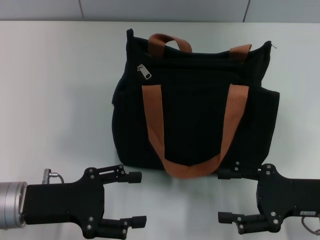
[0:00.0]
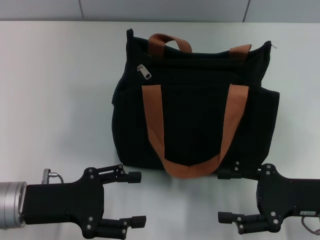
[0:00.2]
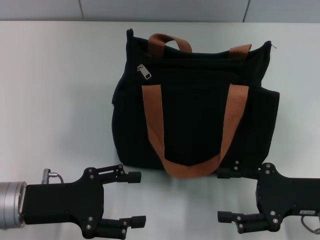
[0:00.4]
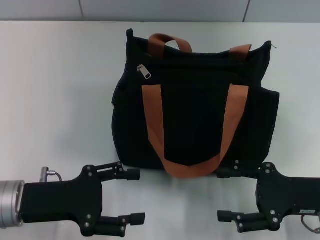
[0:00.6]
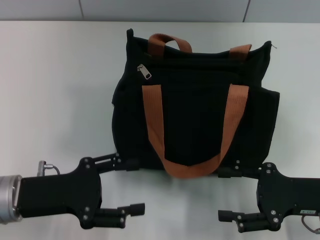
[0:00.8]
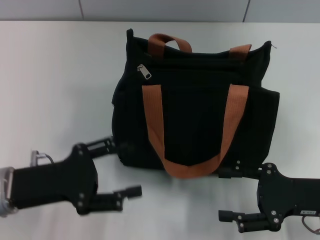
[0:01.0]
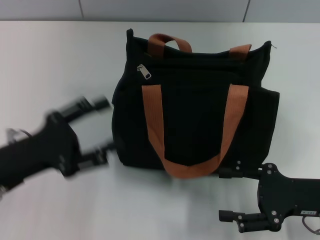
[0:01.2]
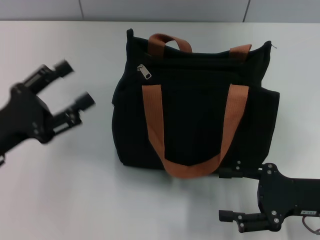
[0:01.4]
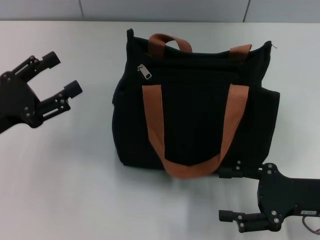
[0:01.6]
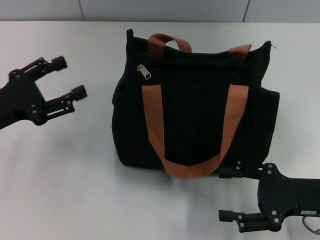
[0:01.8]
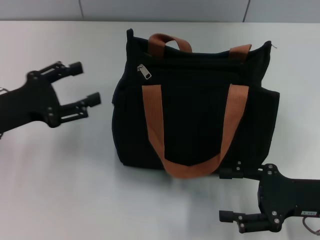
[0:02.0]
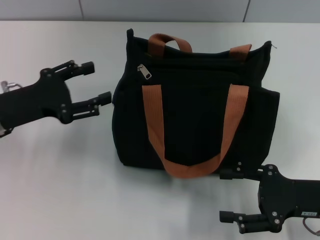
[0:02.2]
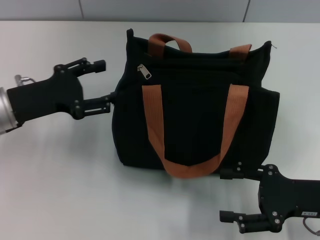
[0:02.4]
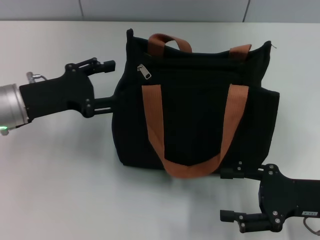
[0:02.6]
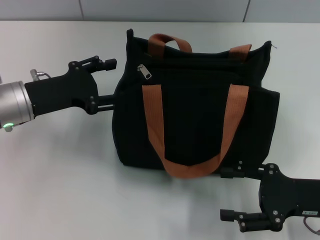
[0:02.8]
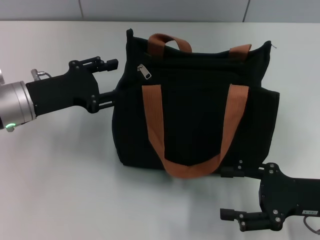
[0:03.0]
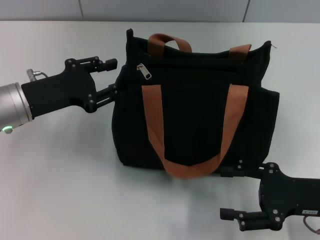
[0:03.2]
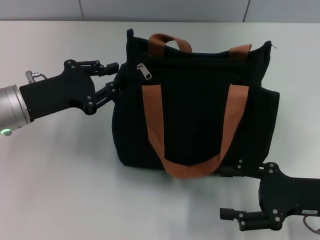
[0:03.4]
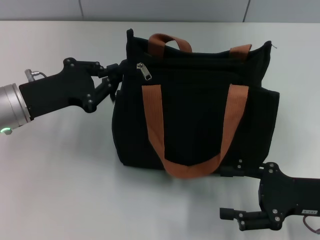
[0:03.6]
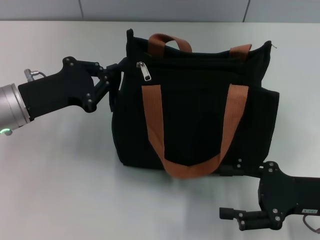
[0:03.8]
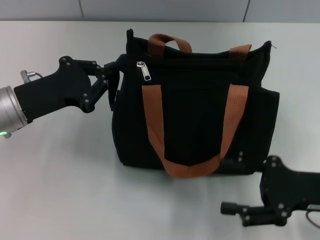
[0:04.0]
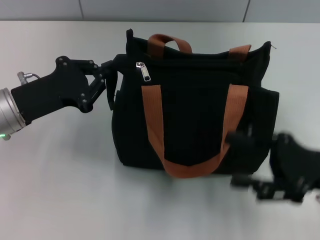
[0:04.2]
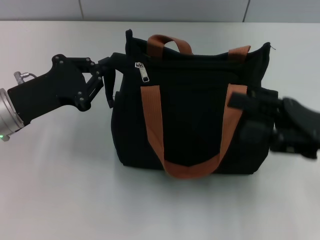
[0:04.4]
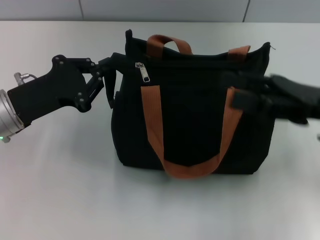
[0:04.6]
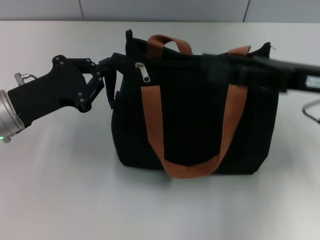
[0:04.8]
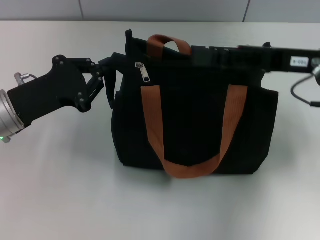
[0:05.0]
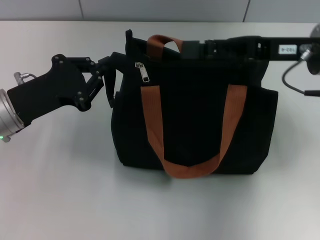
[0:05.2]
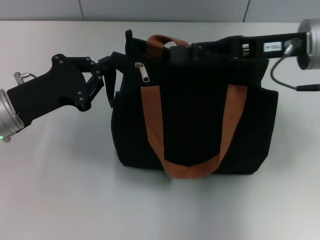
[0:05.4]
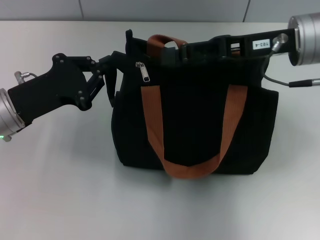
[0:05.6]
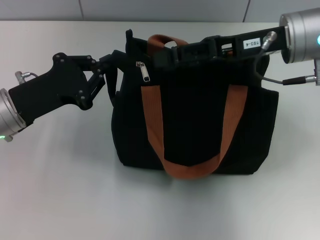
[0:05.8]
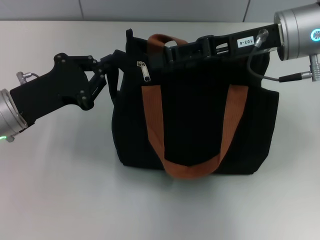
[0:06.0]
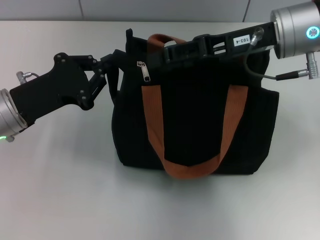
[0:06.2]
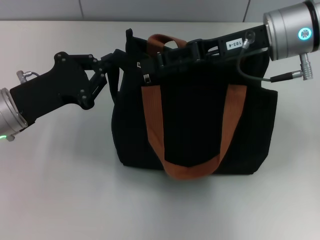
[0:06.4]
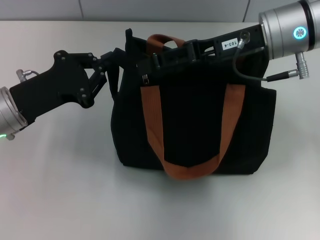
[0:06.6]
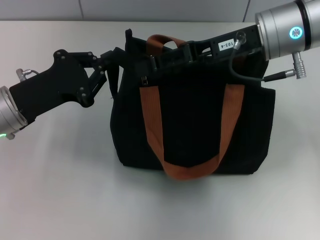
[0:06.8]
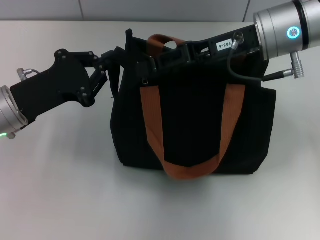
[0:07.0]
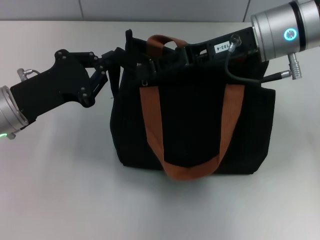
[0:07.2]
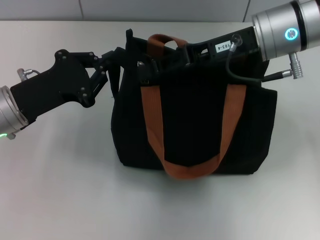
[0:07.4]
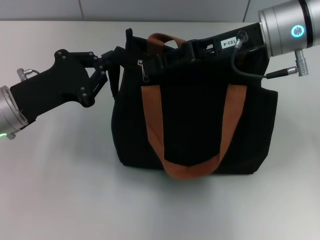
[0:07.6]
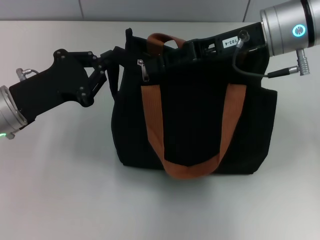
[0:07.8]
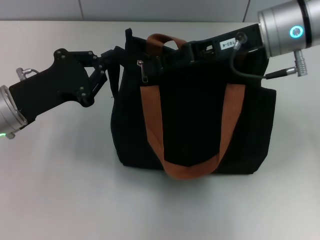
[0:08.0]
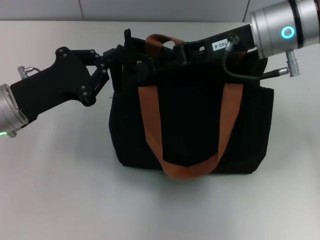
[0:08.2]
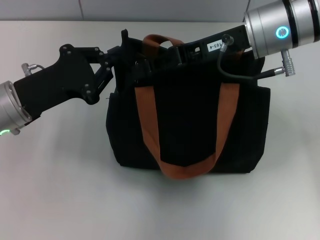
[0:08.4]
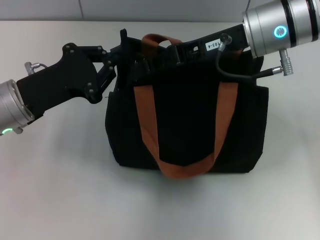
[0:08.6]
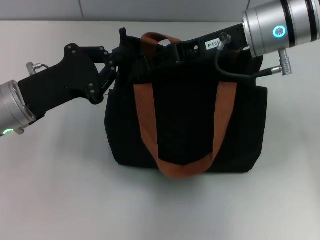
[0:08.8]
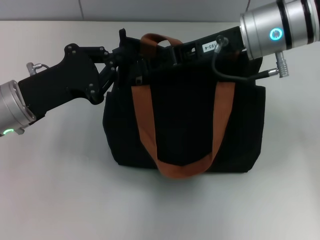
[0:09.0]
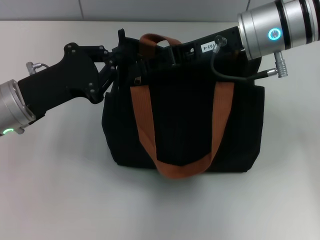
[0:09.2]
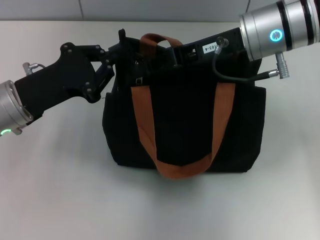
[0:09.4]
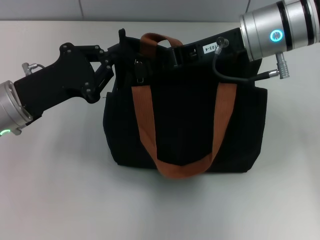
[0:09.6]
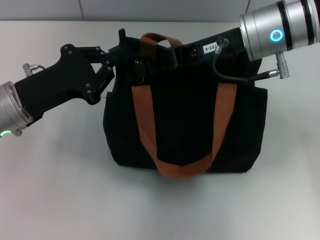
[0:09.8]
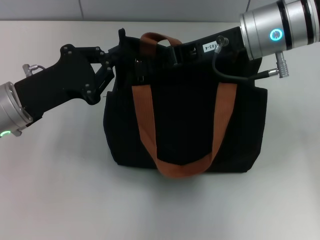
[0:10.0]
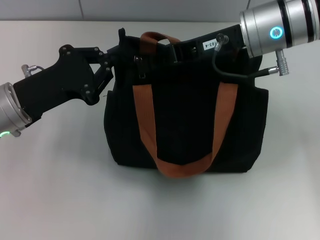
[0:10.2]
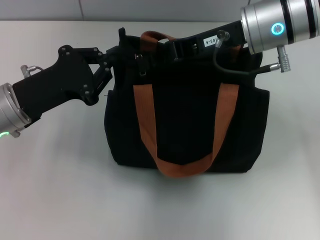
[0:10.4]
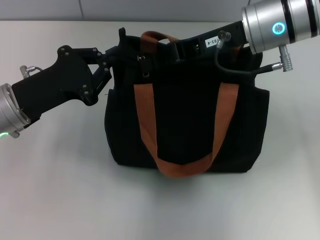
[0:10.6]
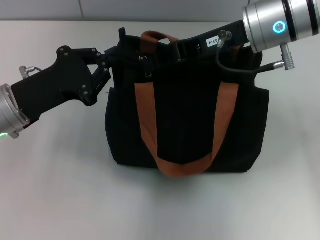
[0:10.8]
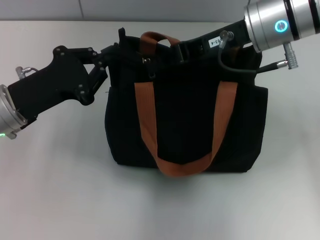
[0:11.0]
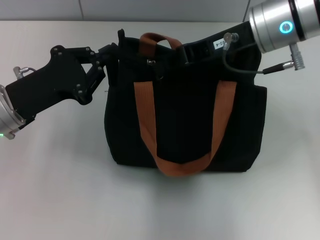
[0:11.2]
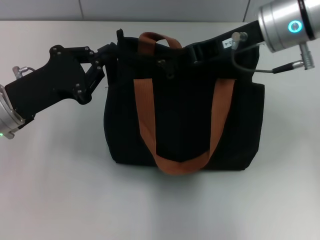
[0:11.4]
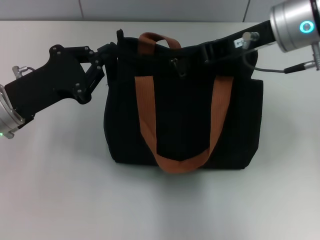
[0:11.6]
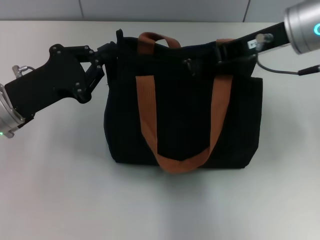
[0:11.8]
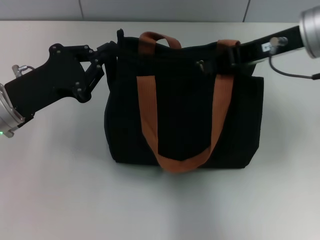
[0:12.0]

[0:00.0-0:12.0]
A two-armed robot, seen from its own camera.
0:00.0 to 0:01.6: The left gripper goes approximately 5 cm to the left.
0:01.6 to 0:03.0: The left gripper goes about 10 cm forward and to the right.
0:03.0 to 0:04.4: The right gripper is displaced upward by about 5 cm; the left gripper closes up.
0:04.4 to 0:06.0: The right gripper heads forward, to the left and upward, covering approximately 15 cm.
0:06.0 to 0:07.6: The right gripper closes up.
0:07.6 to 0:09.0: The grippers stay close to where they were, moving slightly.
0:09.0 to 0:10.4: The right gripper closes its fingers.
0:10.4 to 0:12.0: The right gripper moves to the right, roughly 5 cm.

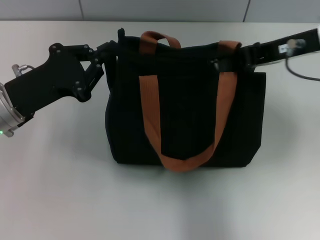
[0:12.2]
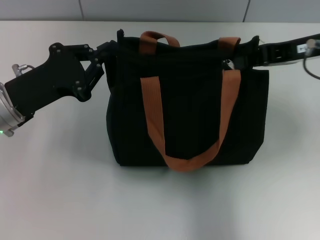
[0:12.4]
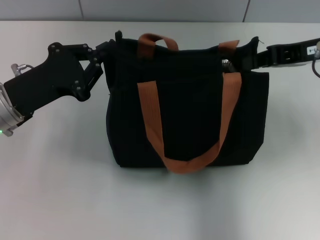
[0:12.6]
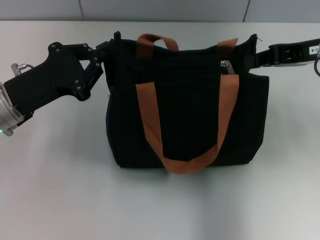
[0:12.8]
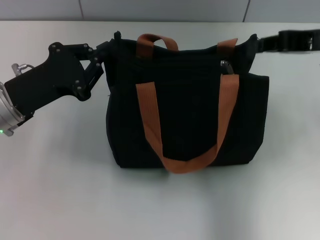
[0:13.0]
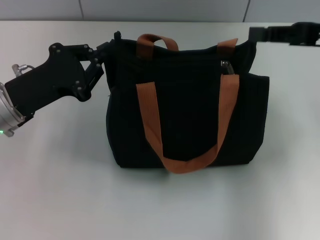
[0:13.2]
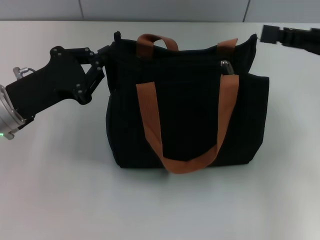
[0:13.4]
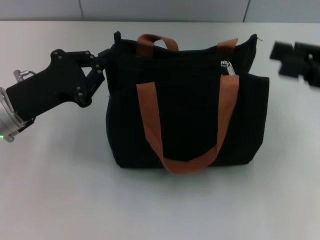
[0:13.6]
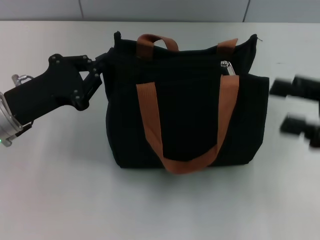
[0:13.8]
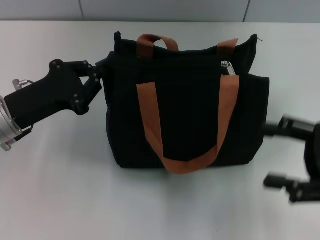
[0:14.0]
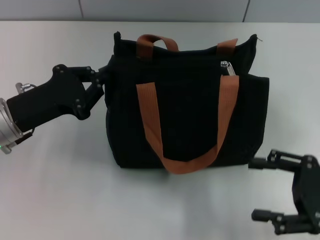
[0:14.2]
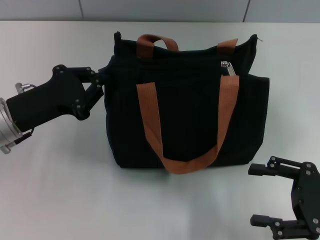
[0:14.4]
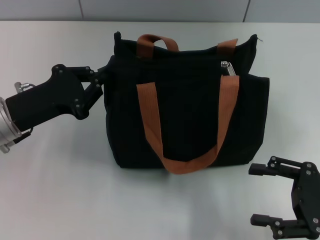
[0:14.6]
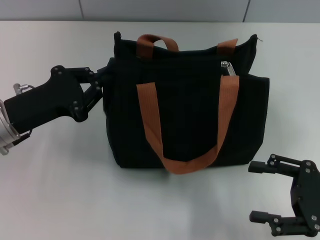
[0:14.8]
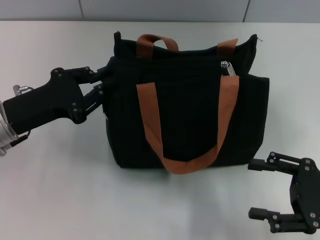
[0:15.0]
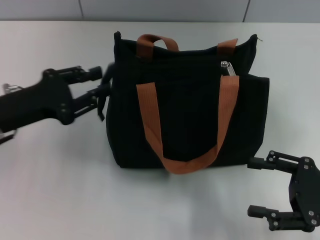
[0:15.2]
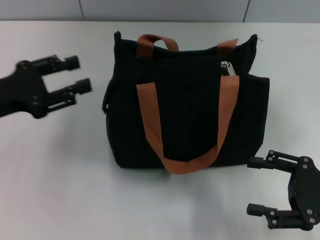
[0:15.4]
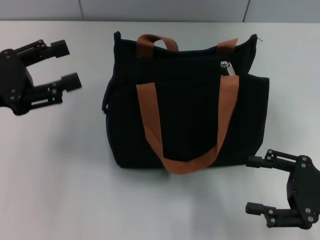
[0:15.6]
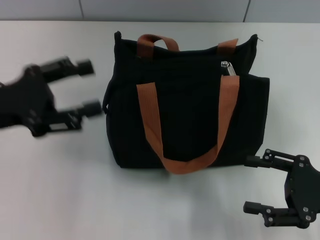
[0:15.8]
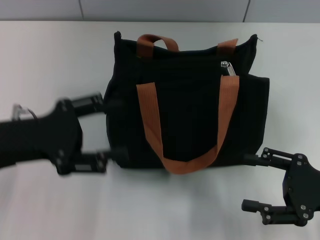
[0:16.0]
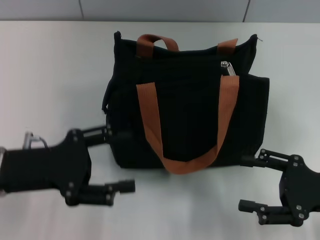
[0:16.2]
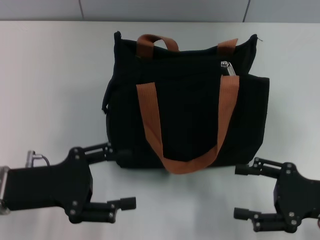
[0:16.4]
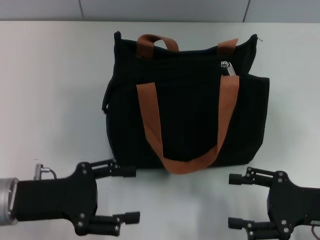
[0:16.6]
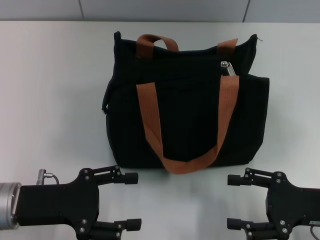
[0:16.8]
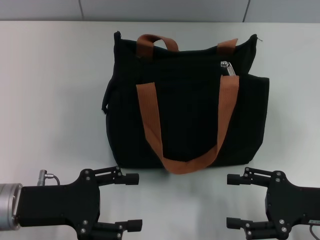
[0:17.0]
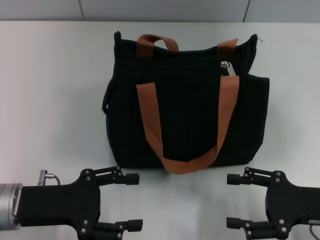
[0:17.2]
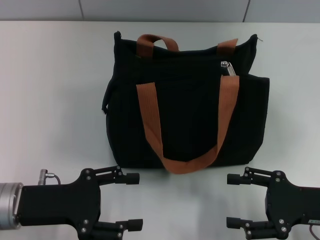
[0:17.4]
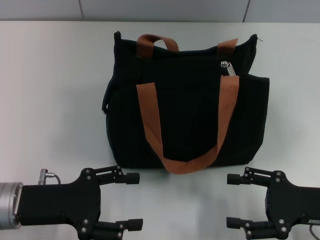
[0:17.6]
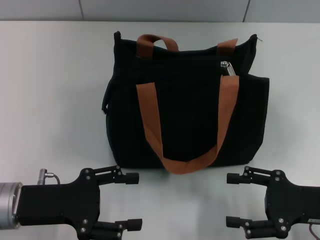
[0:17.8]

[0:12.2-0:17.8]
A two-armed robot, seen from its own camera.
Step, 0:12.8 to 0:15.4: Grab the zipper with your left hand.
0:12.2 to 0:13.6: The right gripper goes about 10 cm to the right and backward, and opens up.
0:13.6 to 0:15.0: The right gripper travels downward and backward by roughly 15 cm, and opens its fingers.
0:15.0 to 0:16.4: The left gripper goes approximately 5 cm backward, and opens up.
0:16.4 to 0:17.8: The grippers make only small movements.

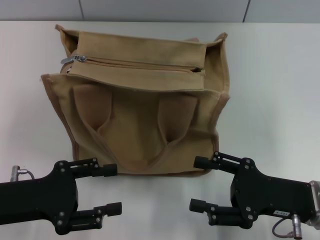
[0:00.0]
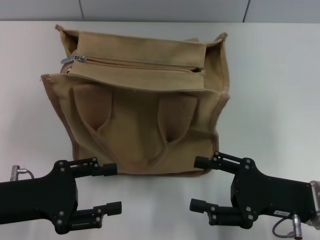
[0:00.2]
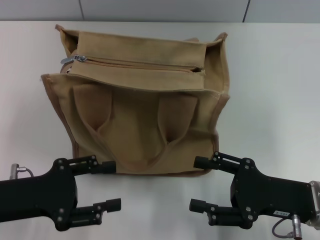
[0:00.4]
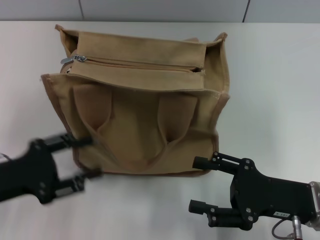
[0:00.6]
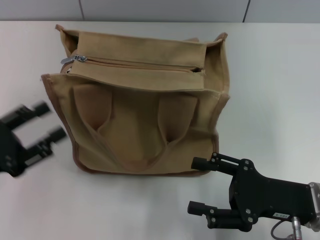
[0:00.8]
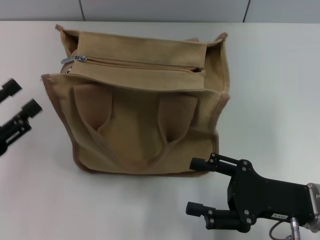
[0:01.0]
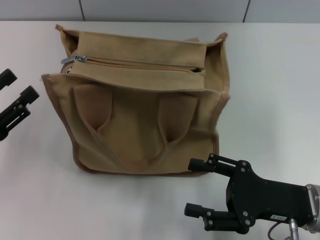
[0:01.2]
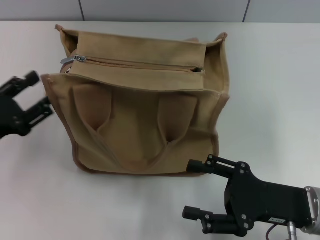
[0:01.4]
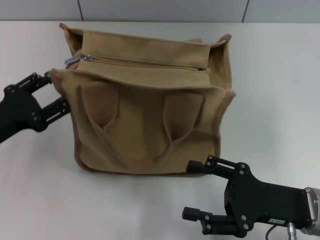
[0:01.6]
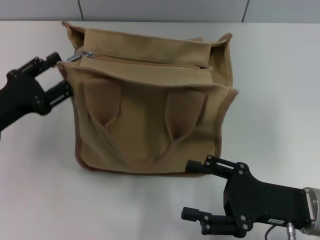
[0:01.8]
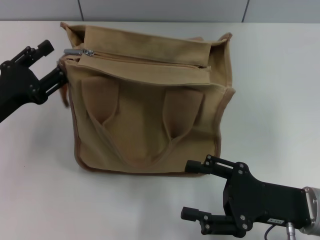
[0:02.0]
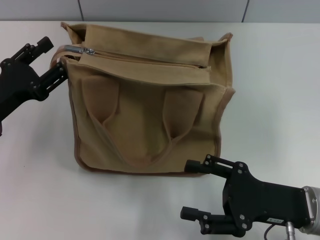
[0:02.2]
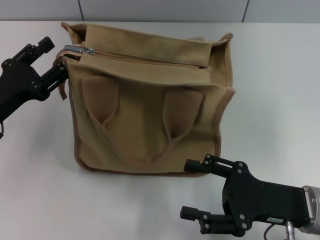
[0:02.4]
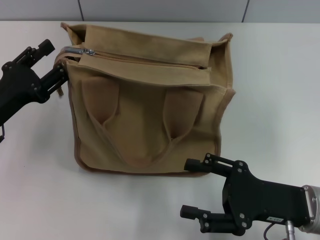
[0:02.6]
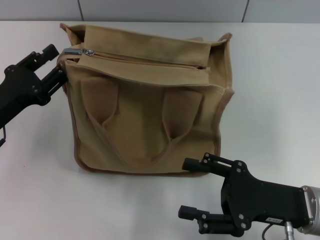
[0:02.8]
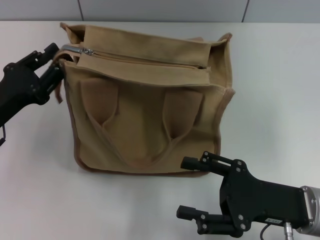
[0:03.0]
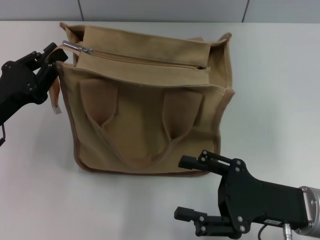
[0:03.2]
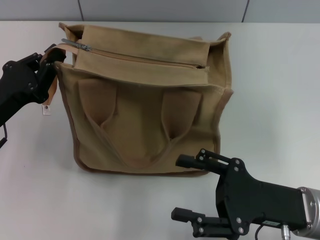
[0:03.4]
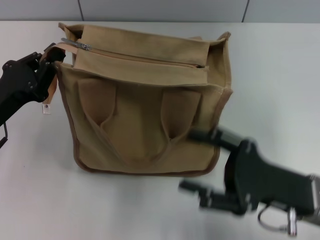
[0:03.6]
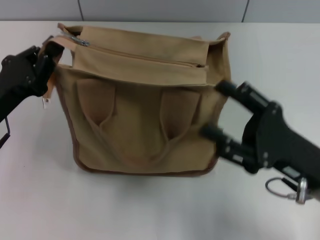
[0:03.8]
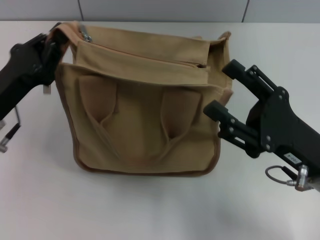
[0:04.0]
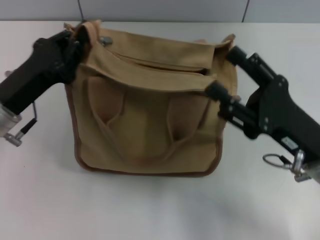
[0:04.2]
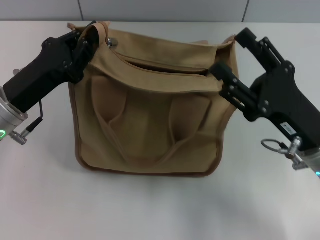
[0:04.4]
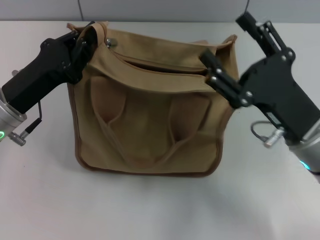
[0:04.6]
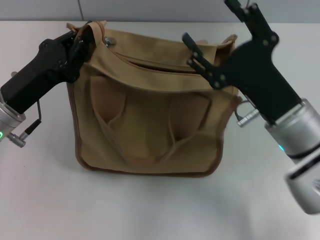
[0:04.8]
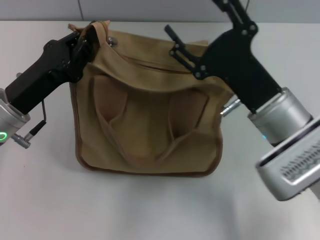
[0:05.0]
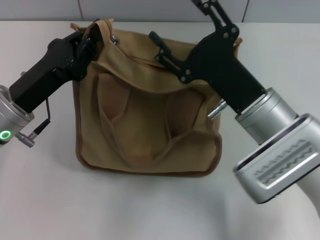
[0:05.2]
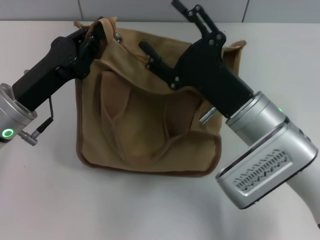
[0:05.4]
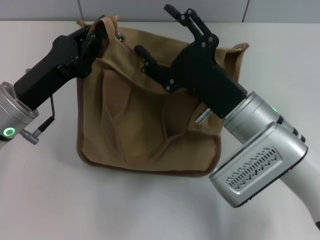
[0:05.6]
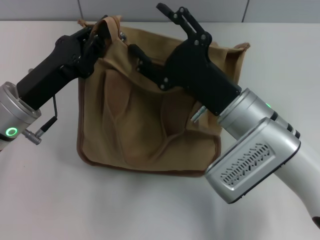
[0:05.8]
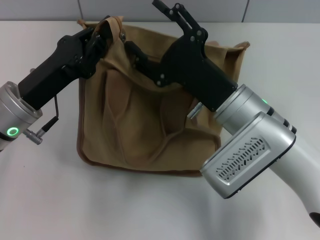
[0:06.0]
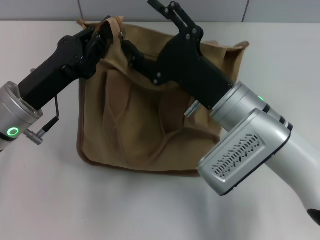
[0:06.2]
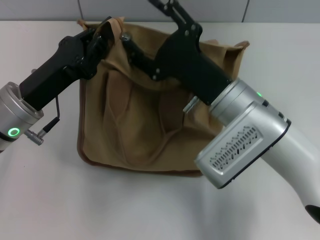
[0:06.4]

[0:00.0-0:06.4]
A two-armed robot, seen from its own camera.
0:00.0 to 0:01.6: The left gripper changes place by about 5 cm.
0:01.6 to 0:03.2: The left gripper closes its fingers.
0:03.2 to 0:04.8: The left gripper shifts by roughly 5 cm, and closes. Meanwhile the right gripper heads forward, covering some 5 cm.
0:04.8 to 0:06.4: The right gripper travels to the left by some 5 cm.
